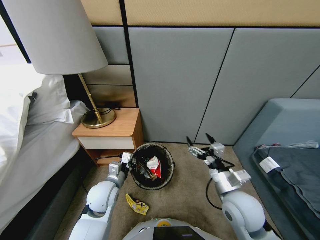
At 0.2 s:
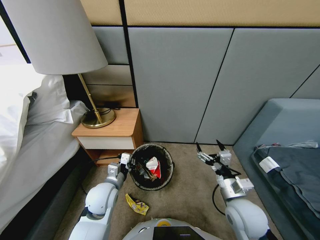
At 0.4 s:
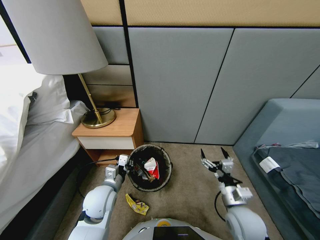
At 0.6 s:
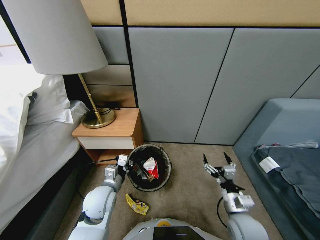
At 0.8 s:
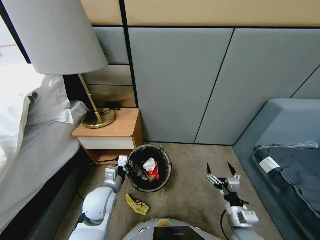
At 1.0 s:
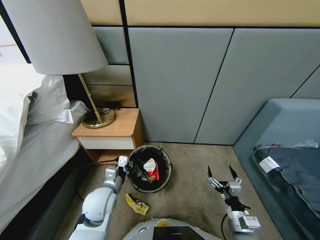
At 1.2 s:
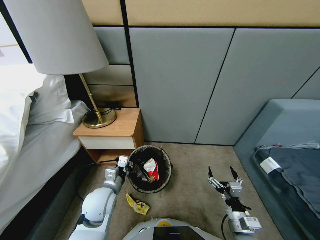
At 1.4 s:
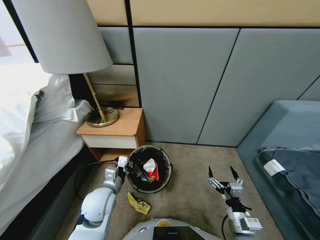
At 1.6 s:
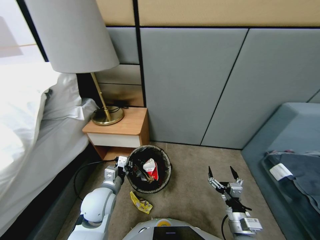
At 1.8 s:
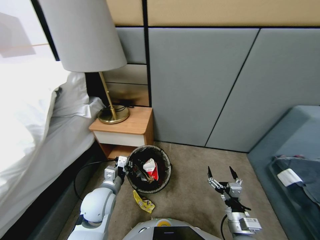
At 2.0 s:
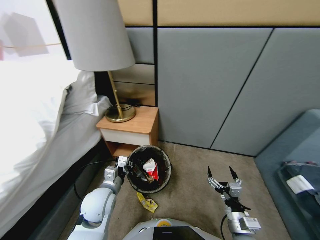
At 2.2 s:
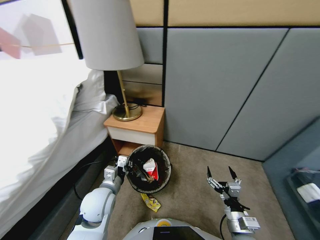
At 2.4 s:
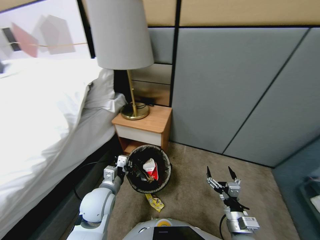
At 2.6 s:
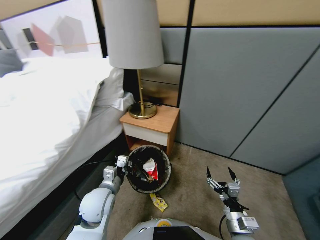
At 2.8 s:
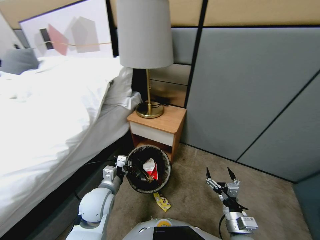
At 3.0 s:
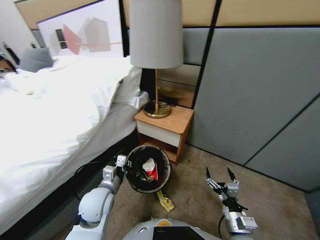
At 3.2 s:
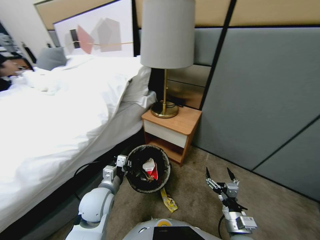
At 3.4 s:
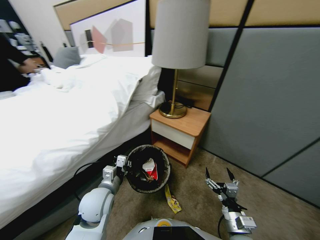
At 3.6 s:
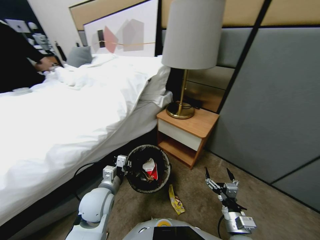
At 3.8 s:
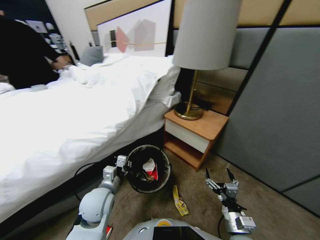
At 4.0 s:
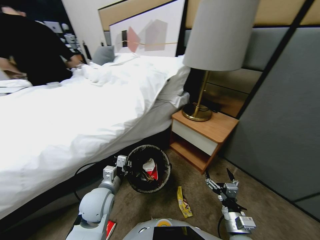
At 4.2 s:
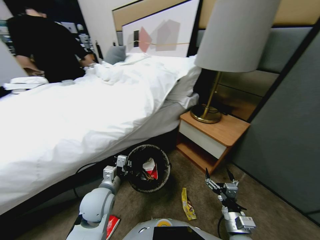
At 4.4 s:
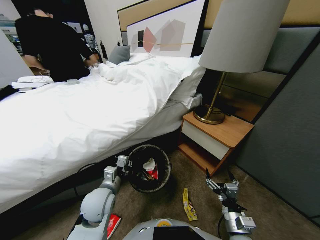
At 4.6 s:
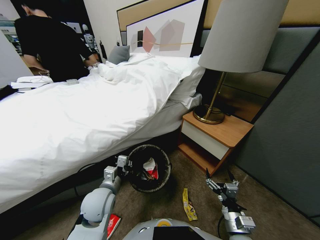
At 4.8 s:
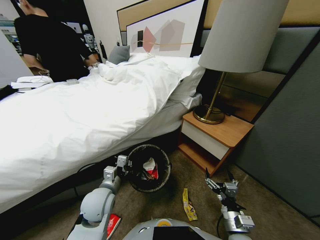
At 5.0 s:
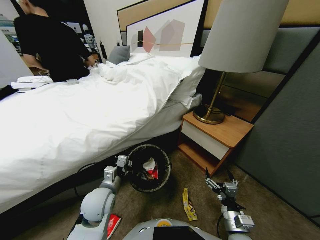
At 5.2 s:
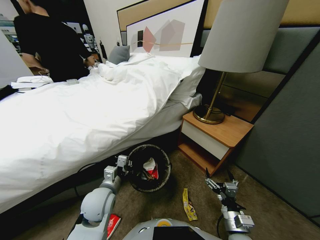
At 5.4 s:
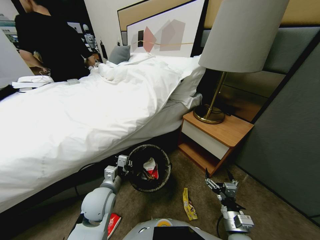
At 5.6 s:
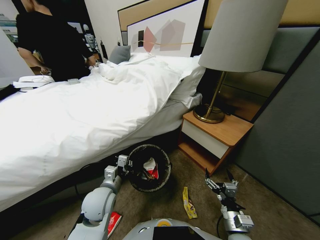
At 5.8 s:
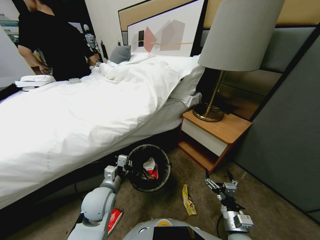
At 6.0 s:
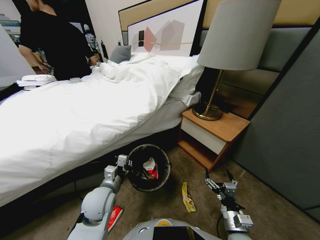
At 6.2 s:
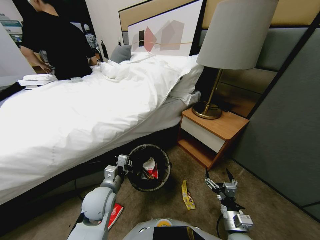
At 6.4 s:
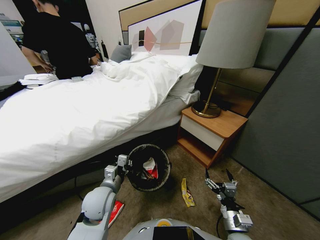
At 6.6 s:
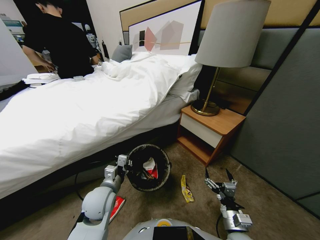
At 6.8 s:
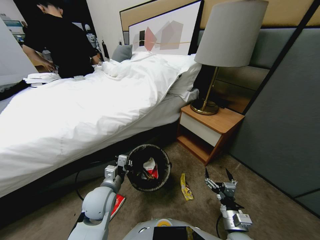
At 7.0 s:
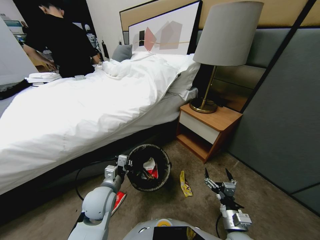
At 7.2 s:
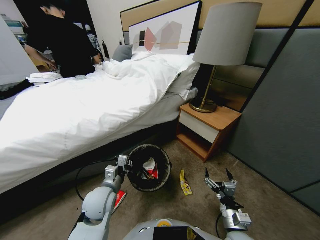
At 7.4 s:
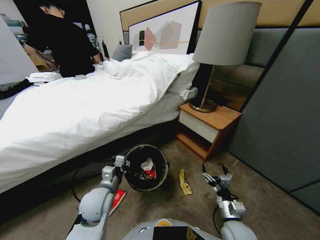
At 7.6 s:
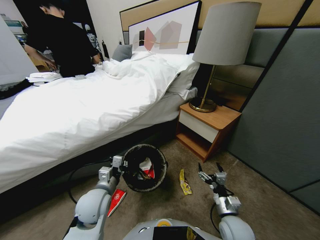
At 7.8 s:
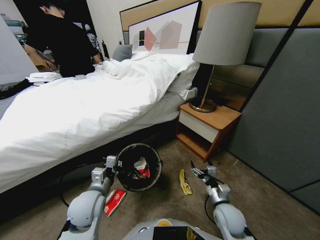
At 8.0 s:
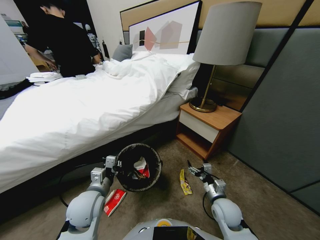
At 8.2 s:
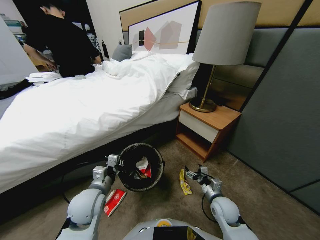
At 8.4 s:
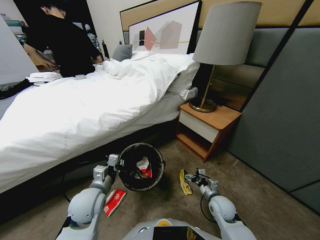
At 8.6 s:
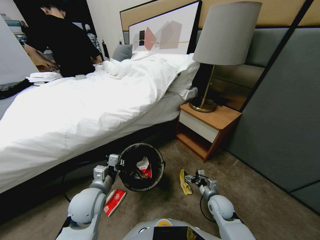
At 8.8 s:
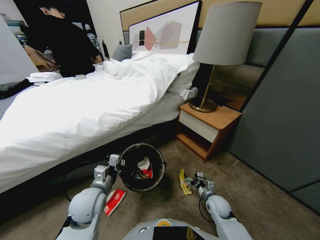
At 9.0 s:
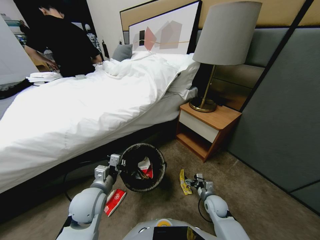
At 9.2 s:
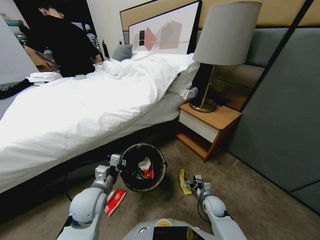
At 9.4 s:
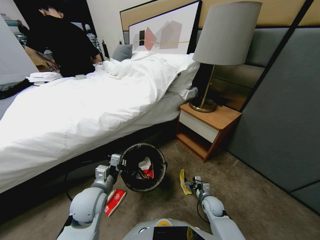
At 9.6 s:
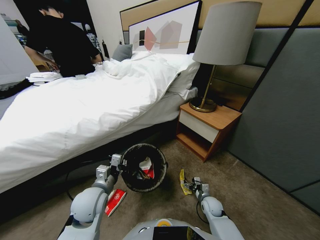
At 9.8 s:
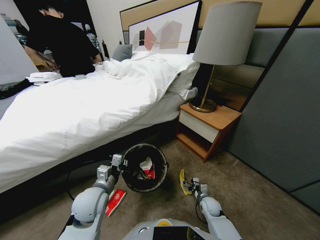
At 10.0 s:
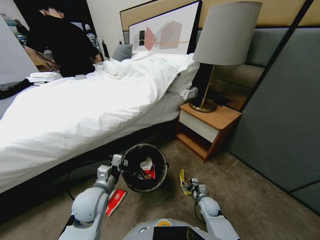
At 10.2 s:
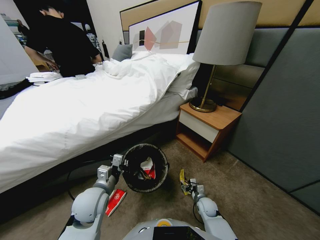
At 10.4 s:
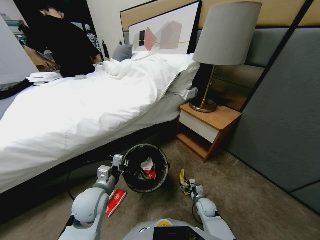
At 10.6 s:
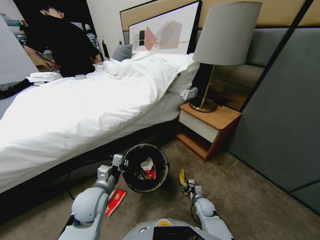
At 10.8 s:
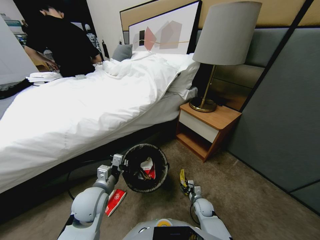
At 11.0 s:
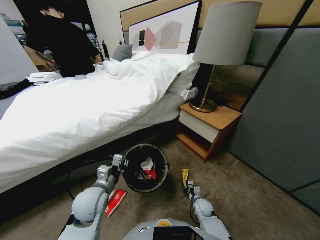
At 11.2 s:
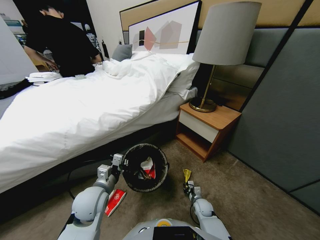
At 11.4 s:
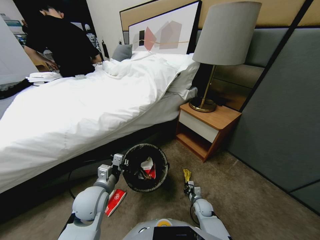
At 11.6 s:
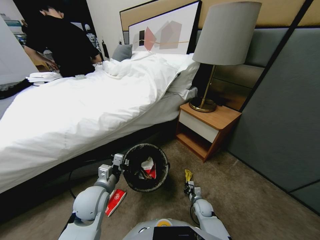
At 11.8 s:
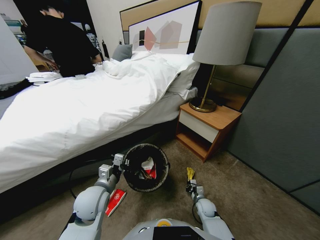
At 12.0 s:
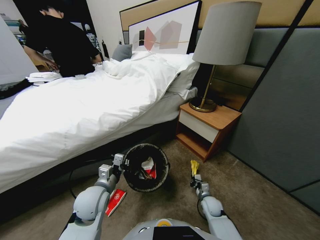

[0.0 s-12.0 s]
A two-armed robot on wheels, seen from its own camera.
Task of the whole recording: Pick up the trash bin, then pick up the garbage from the floor and place it into the trash bin.
0.0 to 1.6 s: The right gripper goes roughly 15 cm downward and backward.
4.4 to 6.0 s: The two grippers keep their place.
6.0 to 7.6 s: The right gripper heads forward, covering roughly 5 cm.
7.6 to 9.0 s: The right gripper moves downward and forward, roughly 15 cm.
9.0 to 10.4 s: The right gripper shifts about 5 cm downward.
10.4 to 12.0 s: The right gripper goes approximately 5 cm upward, and closes up.

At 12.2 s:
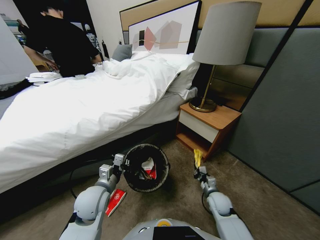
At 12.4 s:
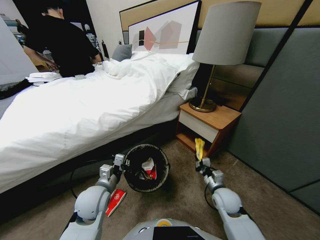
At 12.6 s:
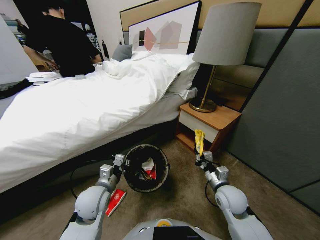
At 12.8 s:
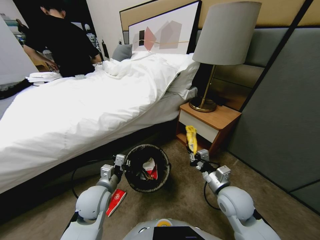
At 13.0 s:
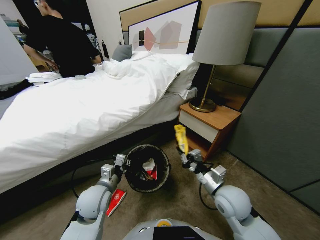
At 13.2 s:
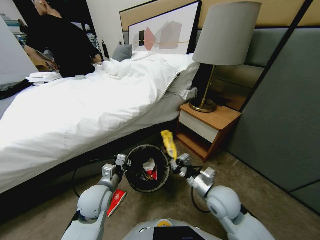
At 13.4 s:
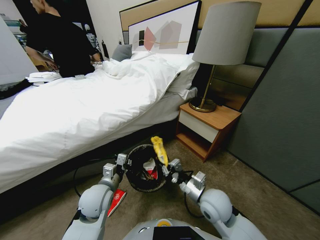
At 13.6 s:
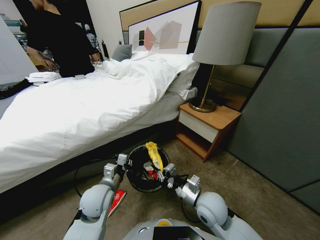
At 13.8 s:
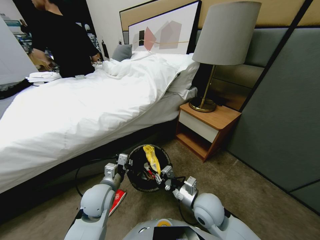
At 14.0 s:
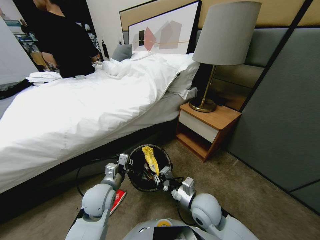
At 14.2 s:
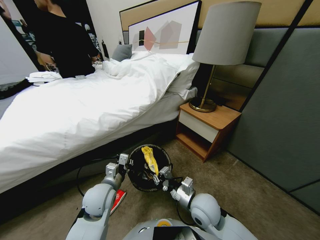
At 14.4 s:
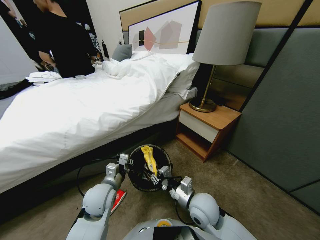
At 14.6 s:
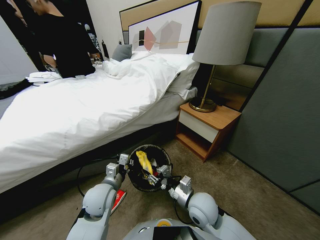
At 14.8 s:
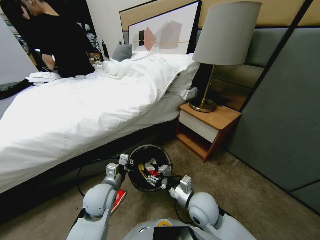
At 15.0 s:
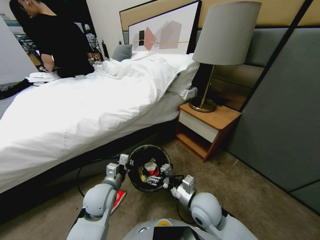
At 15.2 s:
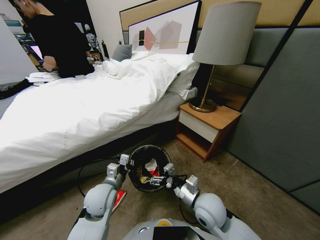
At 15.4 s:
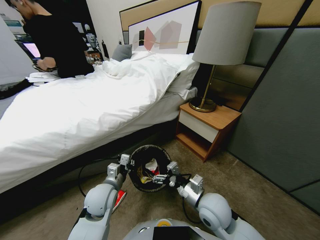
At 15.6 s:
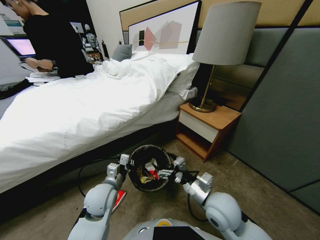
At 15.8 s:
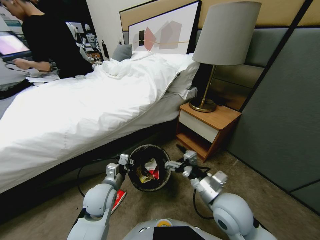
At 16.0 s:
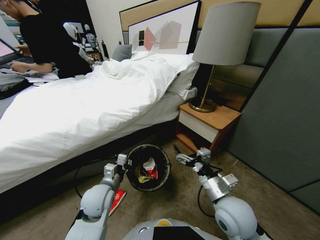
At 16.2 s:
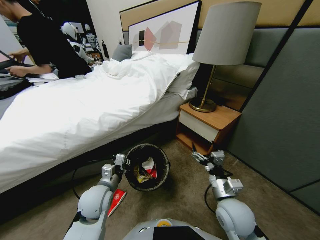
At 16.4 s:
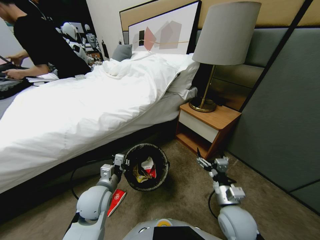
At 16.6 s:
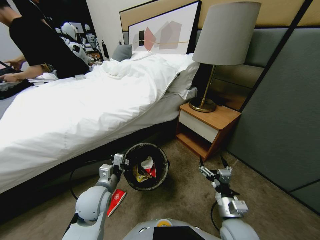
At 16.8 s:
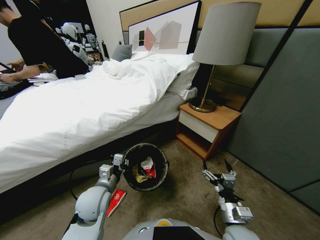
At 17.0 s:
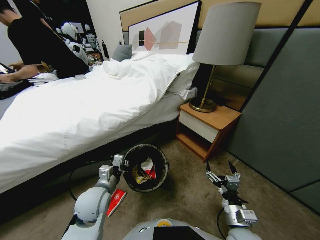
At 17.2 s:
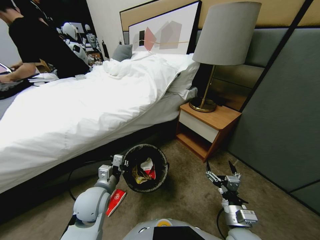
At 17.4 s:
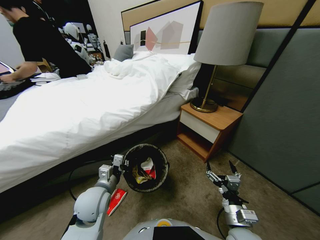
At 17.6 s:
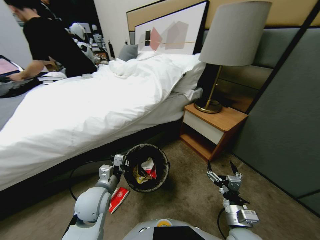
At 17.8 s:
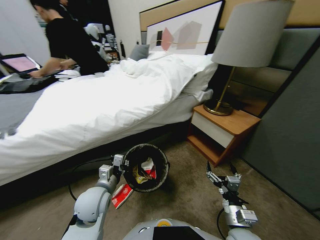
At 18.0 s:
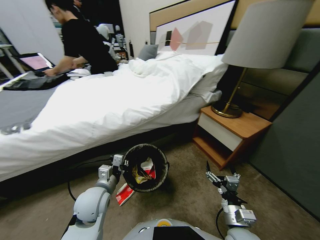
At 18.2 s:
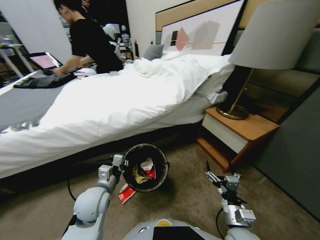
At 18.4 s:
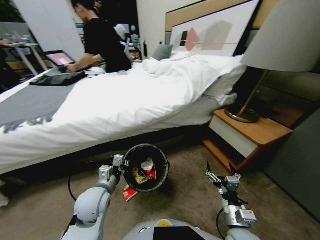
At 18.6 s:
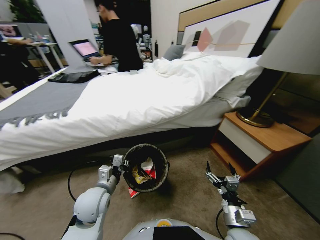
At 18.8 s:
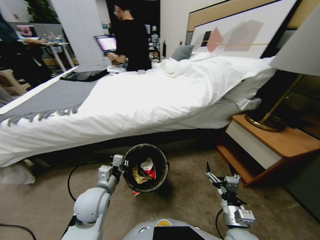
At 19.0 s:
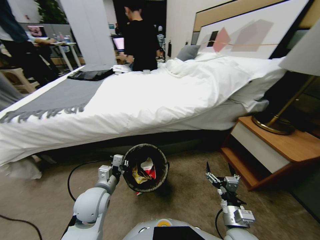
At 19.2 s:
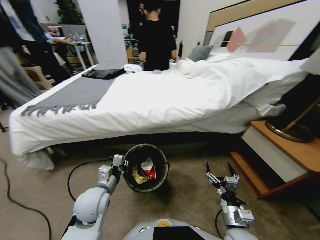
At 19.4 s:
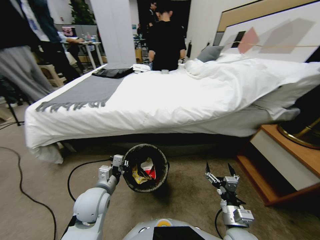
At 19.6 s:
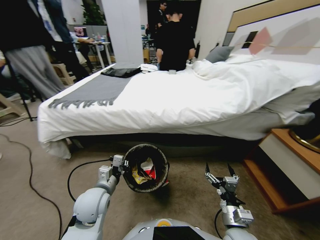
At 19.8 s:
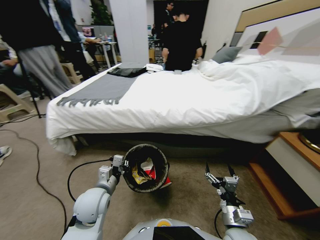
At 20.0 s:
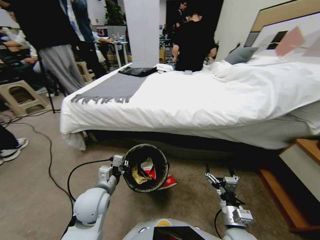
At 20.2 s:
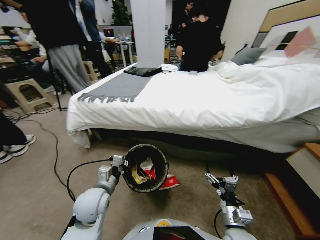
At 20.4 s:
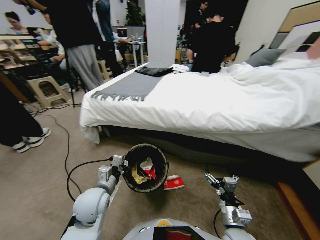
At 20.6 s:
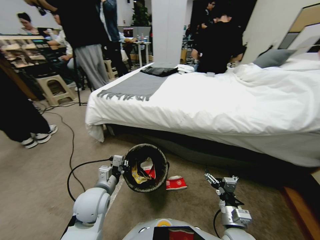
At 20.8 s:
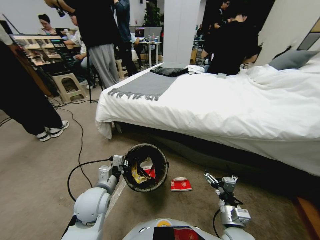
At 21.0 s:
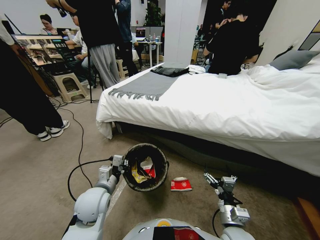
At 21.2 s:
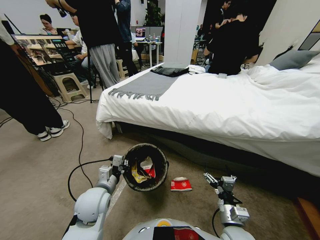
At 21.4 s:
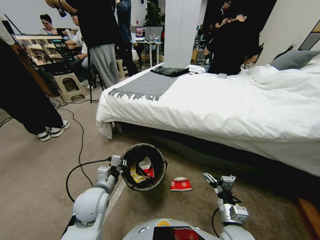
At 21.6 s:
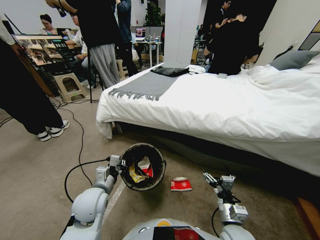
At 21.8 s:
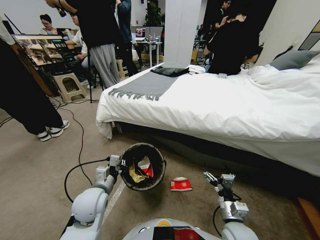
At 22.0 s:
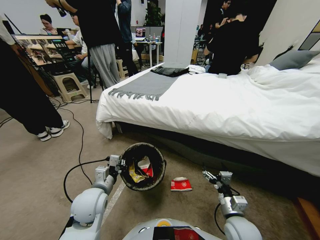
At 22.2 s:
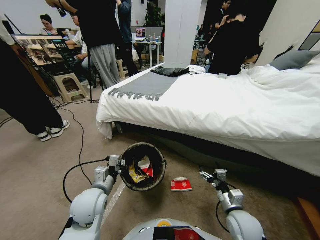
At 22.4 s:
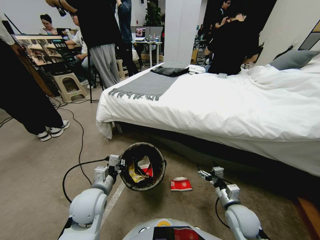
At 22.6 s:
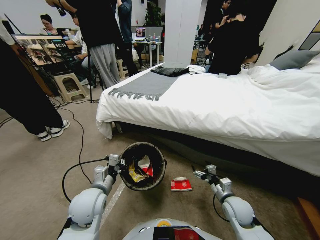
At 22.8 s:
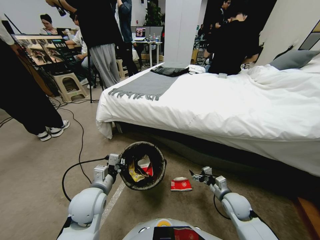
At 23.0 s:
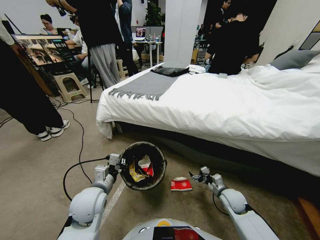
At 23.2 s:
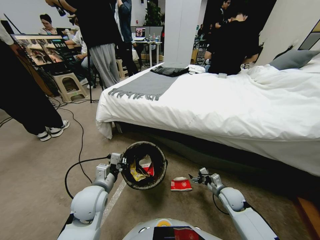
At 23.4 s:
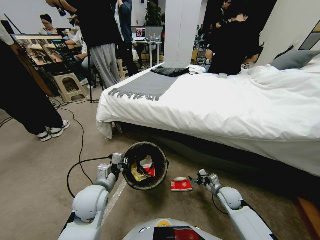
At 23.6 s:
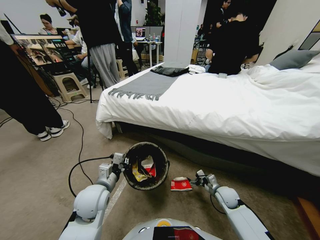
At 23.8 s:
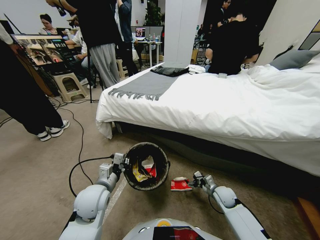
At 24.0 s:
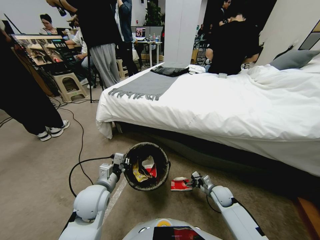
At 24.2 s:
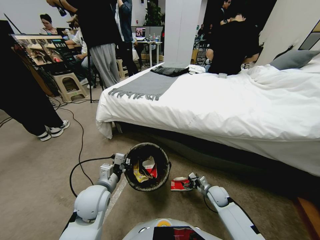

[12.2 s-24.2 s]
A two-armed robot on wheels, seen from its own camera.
Task of the whole recording: Pick up the trash bin, then pick up the garbage from the floor and place it into the trash bin.
12.2 to 13.8 s: The right gripper goes about 15 cm upward and to the left.
13.8 to 15.2 s: The right gripper opens up.
15.2 to 16.6 s: The right gripper shifts approximately 10 cm to the right and backward.
21.2 to 22.6 s: The right gripper travels forward and to the right by roughly 10 cm.
22.6 to 24.2 s: The right gripper travels downward and forward by roughly 15 cm.
